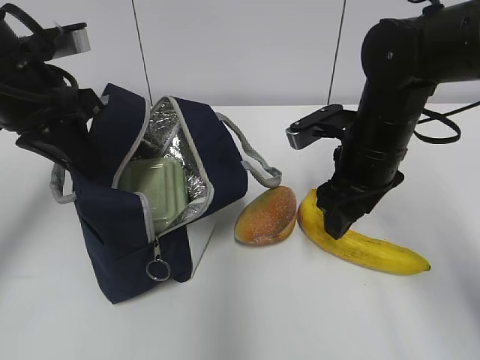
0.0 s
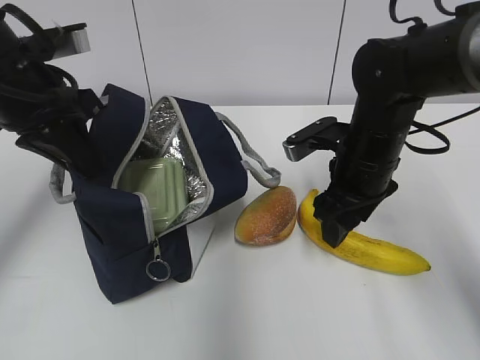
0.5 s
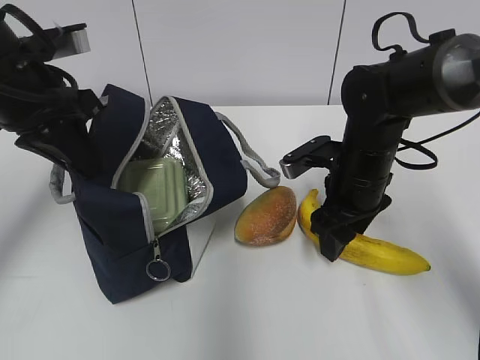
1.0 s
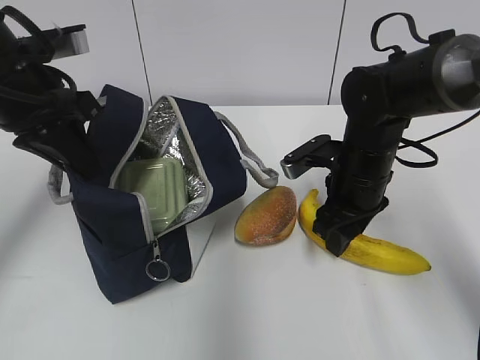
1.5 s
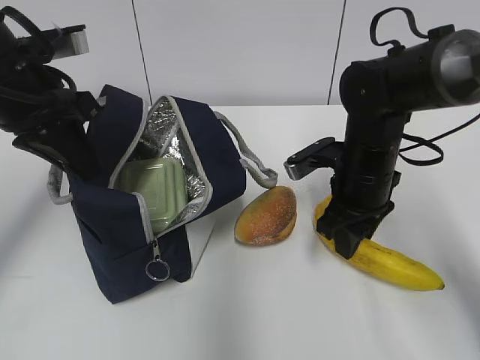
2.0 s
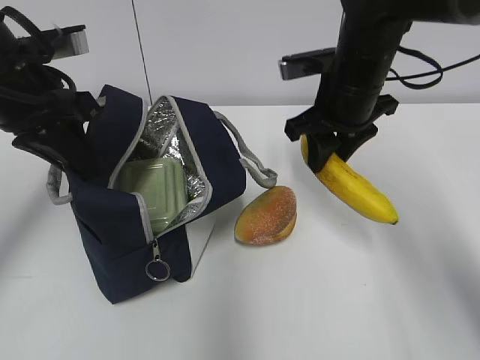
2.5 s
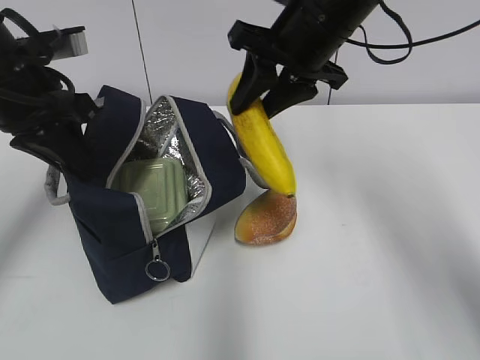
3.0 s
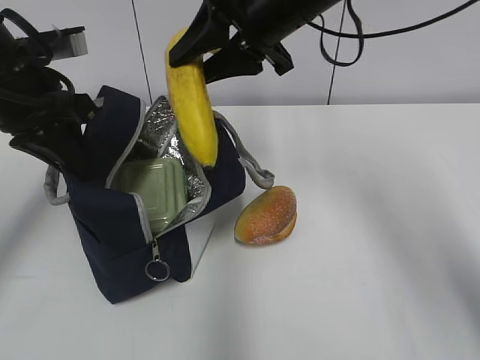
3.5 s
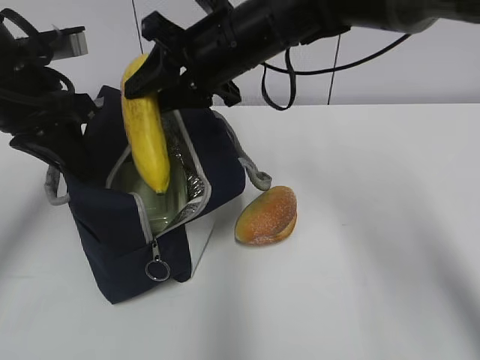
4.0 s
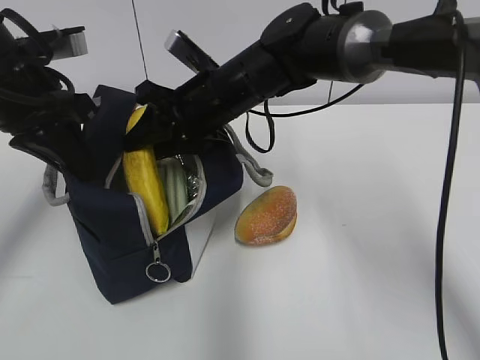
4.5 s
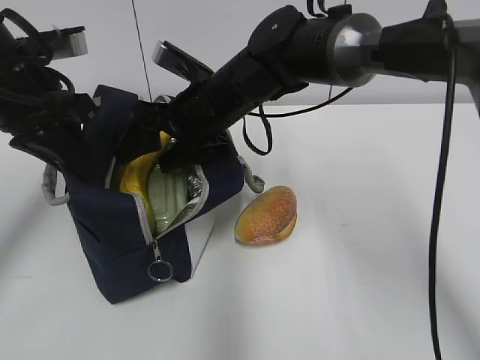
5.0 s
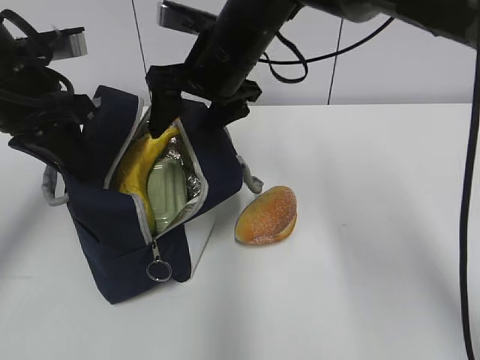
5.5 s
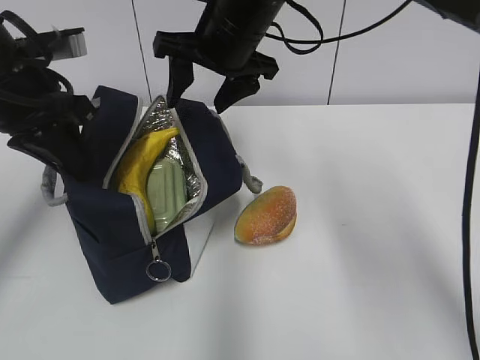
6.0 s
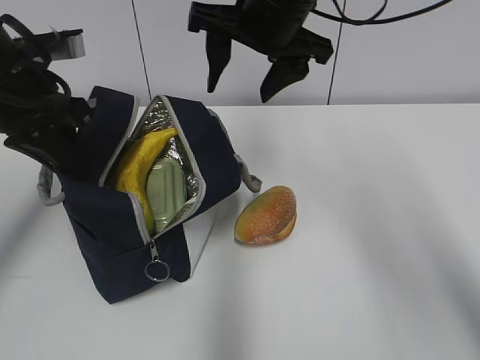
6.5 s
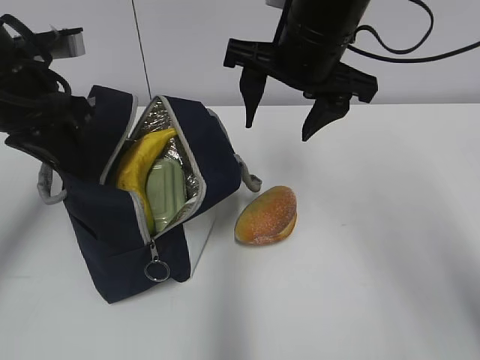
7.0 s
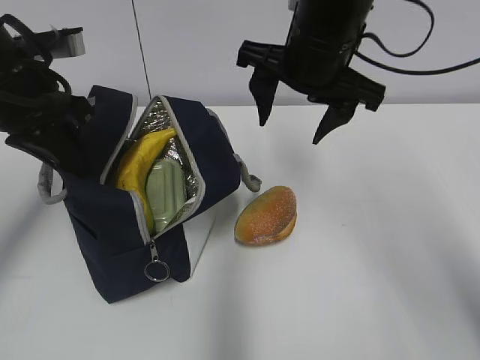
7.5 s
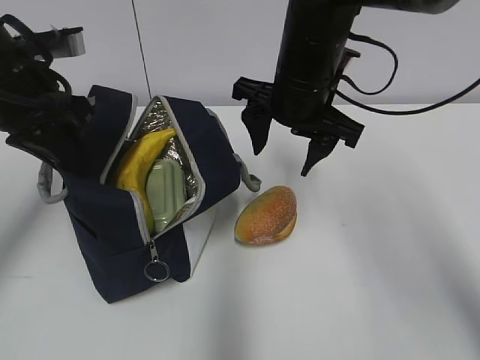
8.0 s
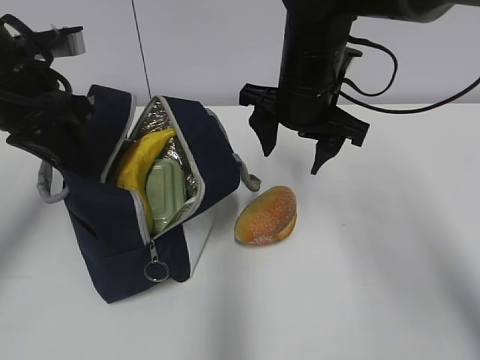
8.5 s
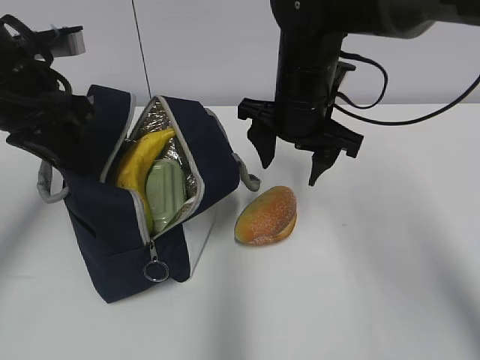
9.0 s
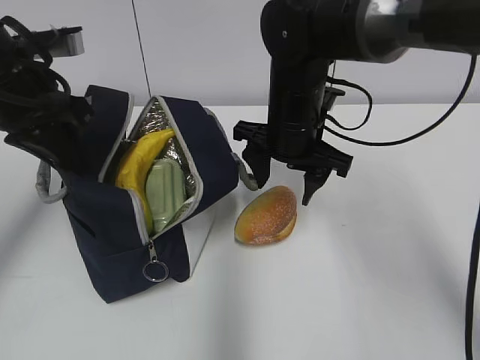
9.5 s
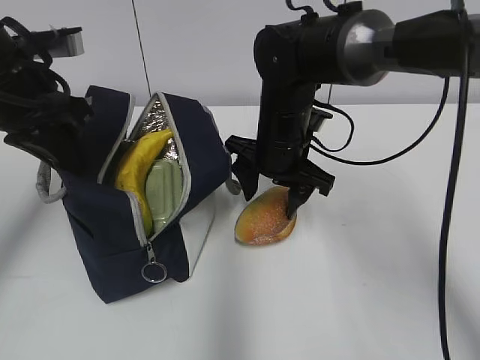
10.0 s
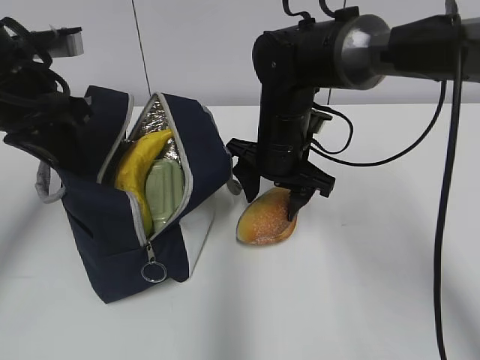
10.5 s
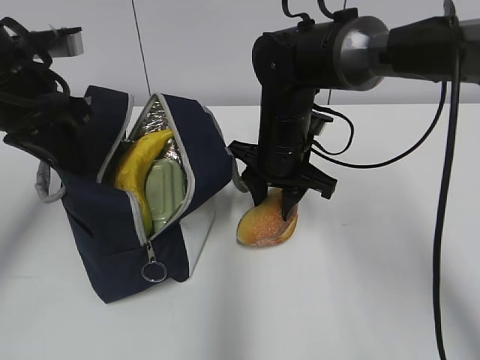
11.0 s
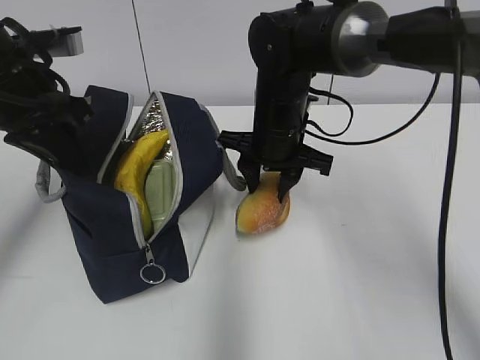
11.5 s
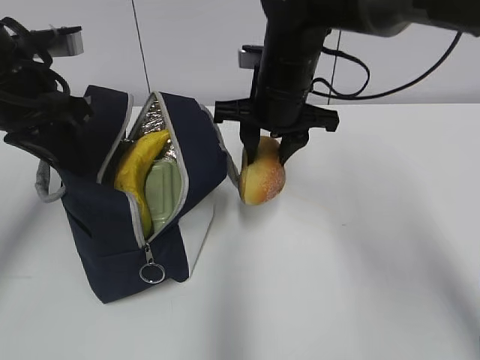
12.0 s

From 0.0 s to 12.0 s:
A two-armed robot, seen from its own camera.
Step, from 2.0 s to 5.0 s: Place it into the bag with your right hand.
Step, from 5.5 s to 11.0 s: Grab the bread with your right hand.
From 0.0 s to 2.0 s: The right gripper closes its fingers.
From 2.0 s to 4.0 s: The right gripper goes roughly 20 cm upward and to the left.
From 4.0 s to 6.0 s: The right gripper travels downward and back again, about 5 cm each way, and opens its fingers.
From 6.0 s to 8.0 s: The right gripper is displaced to the right by approximately 5 cm.
From 8.0 s to 10.0 s: The right gripper goes about 10 cm downward.
From 10.0 s to 12.0 s: The right gripper moves upward, approximately 5 cm, and closes.

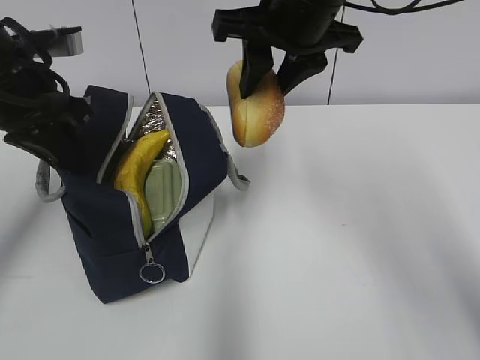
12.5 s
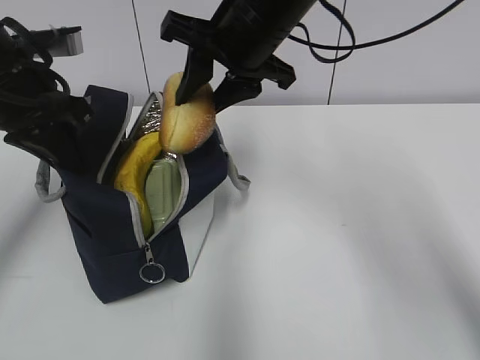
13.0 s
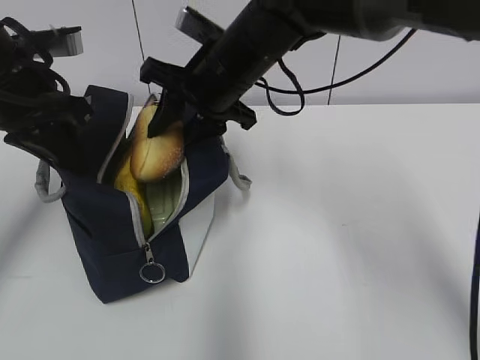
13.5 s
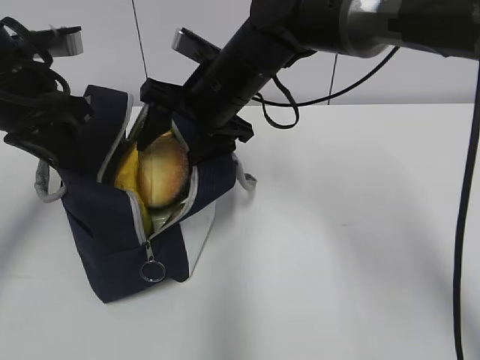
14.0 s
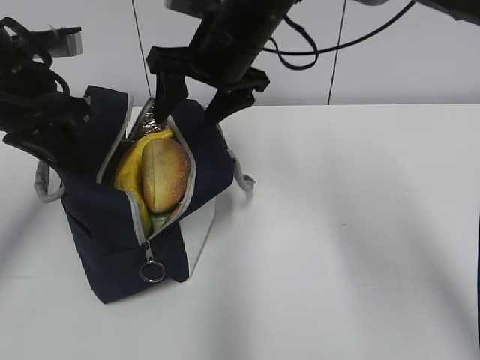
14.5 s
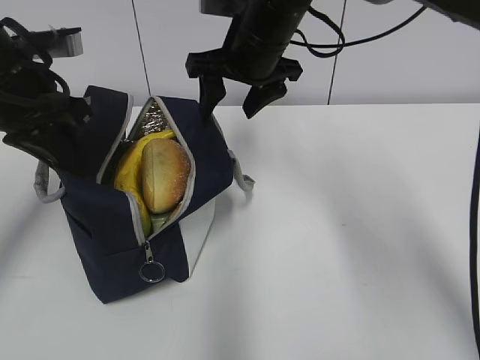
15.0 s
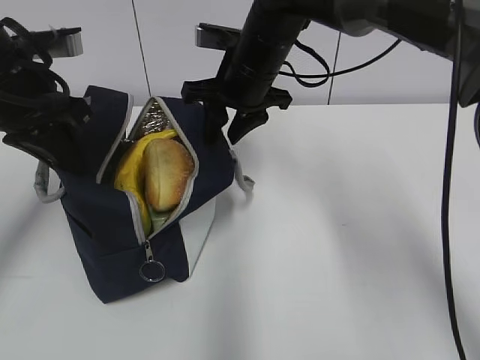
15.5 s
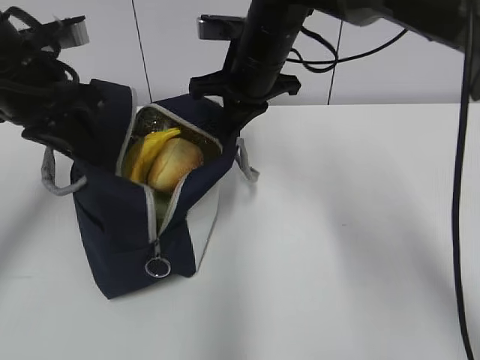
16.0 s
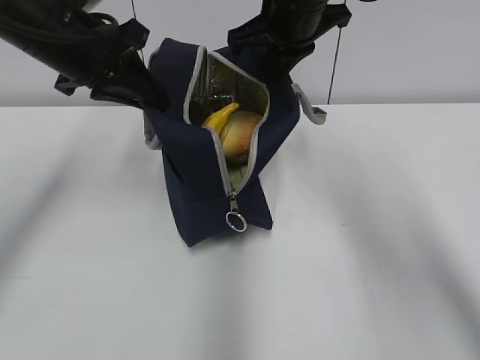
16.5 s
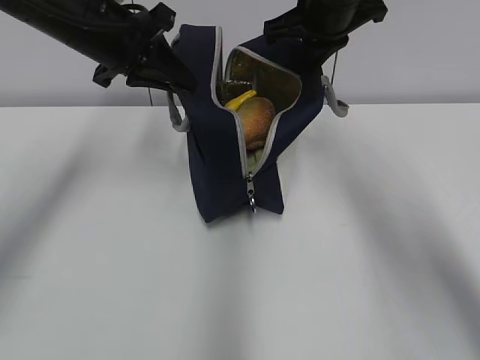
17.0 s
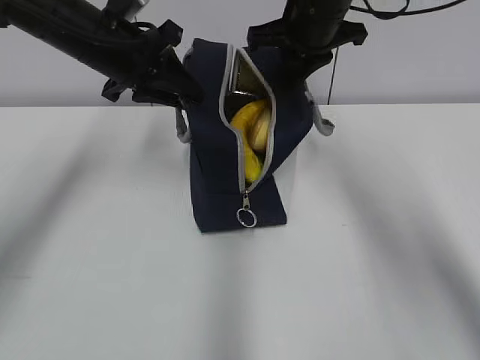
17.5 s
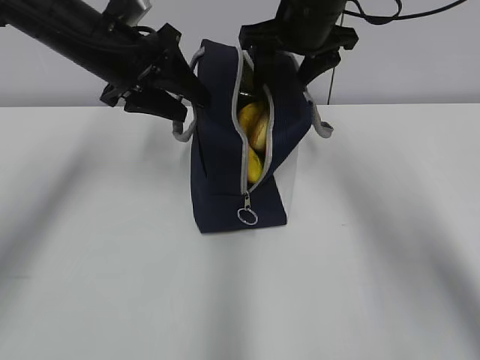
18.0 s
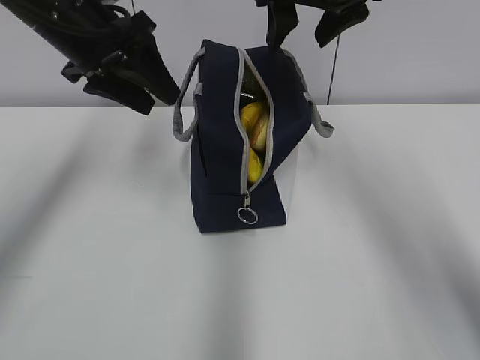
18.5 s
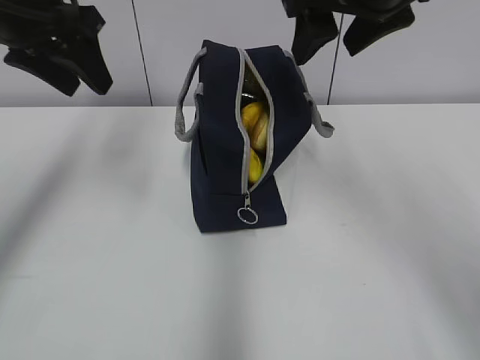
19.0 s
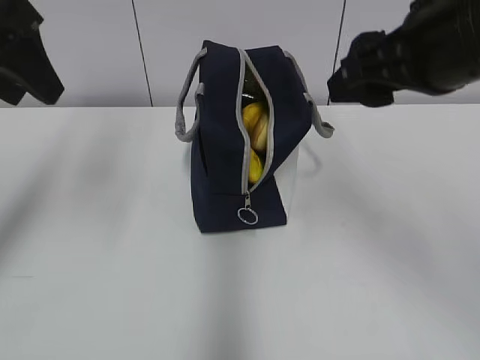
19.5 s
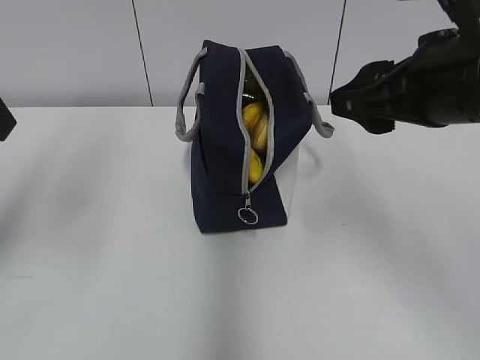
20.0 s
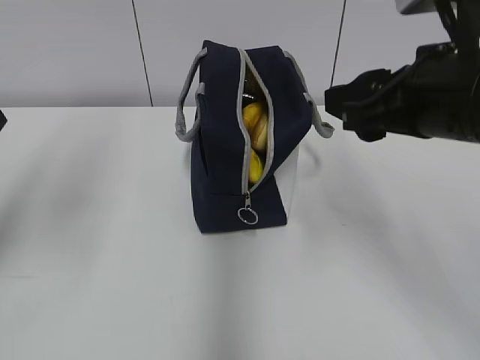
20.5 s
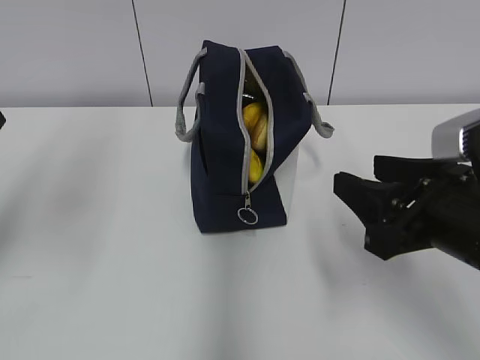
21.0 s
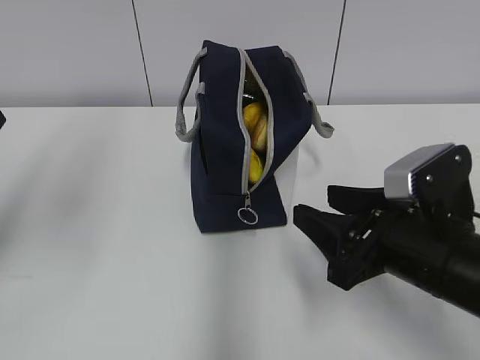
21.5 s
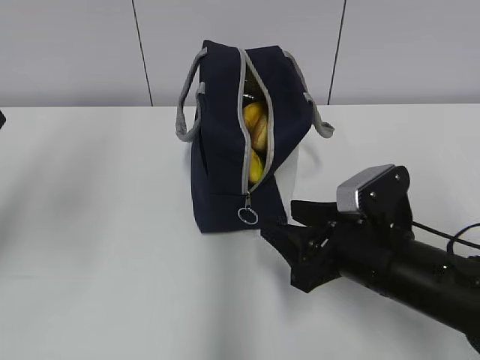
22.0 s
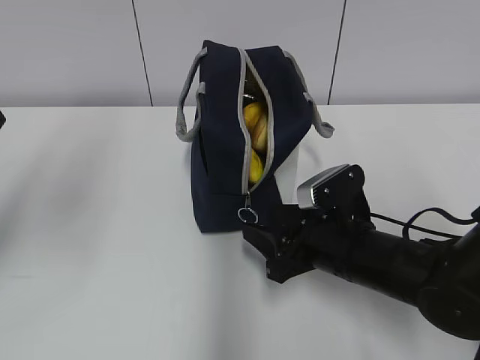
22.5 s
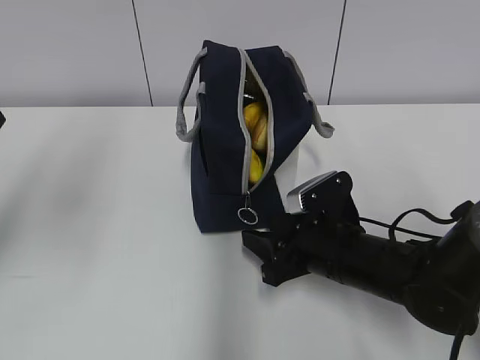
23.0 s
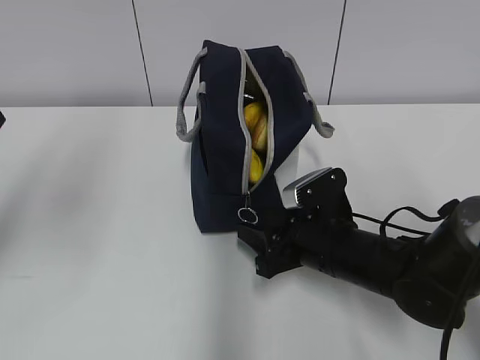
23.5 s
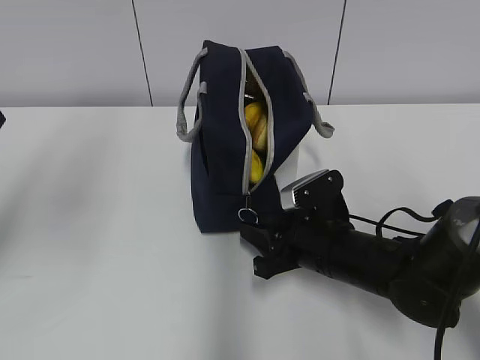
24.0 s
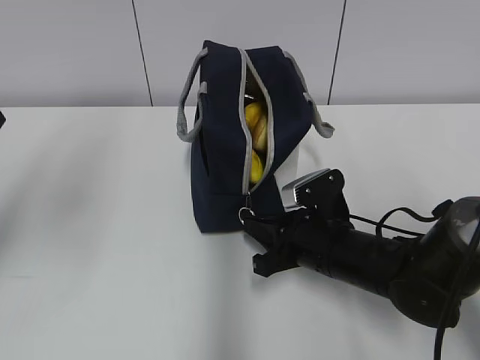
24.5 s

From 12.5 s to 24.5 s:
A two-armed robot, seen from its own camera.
Step, from 14.5 s to 15.5 s: Grab the lunch bag with your right hand.
Step, from 16.0 s to 17.5 s: Move the lunch bag to the right.
From 12.5 s to 14.5 s: The right gripper moves to the left and downward, about 10 cm, and opens its fingers.
From 14.5 s to 16.5 s: The right gripper is displaced to the right by approximately 5 cm, and closes its fingers; the left gripper ends up about 5 cm from where it was.
From 16.5 s to 18.5 s: The left gripper opens its fingers. The right gripper moves roughly 5 cm, and opens up.
From 18.5 s to 20.5 s: The left gripper heads backward, to the left and upward, covering about 15 cm. Meanwhile the right gripper goes roughly 20 cm backward and downward.
From 20.5 s to 22.5 s: The right gripper moves downward, roughly 20 cm.
From 22.5 s to 24.5 s: The right gripper closes up.

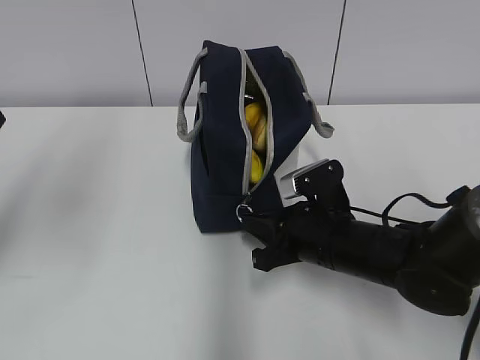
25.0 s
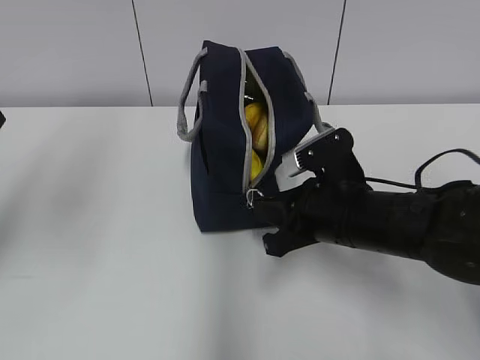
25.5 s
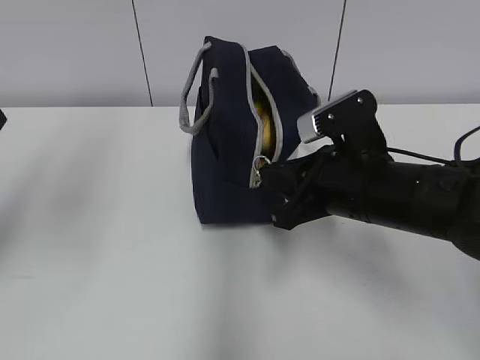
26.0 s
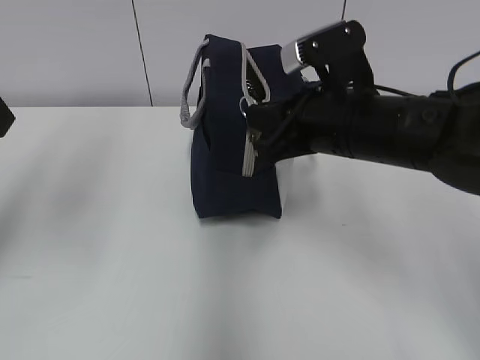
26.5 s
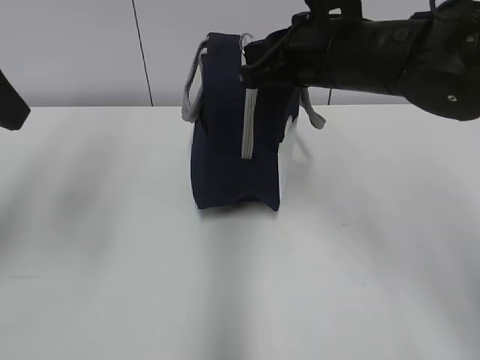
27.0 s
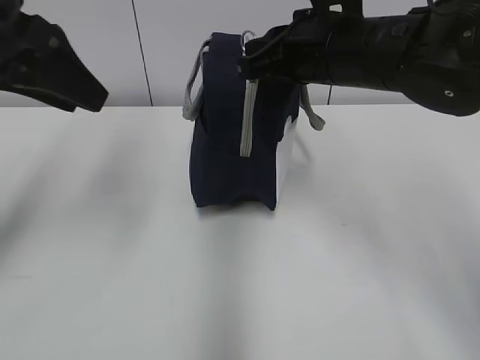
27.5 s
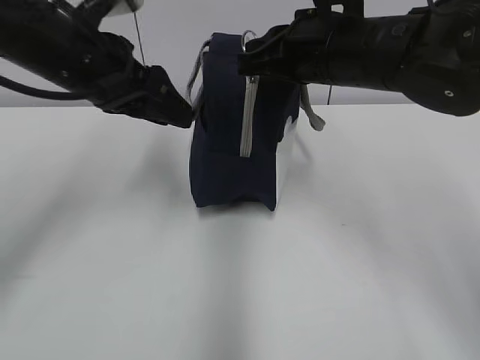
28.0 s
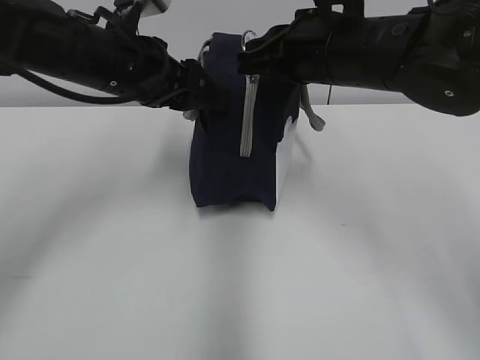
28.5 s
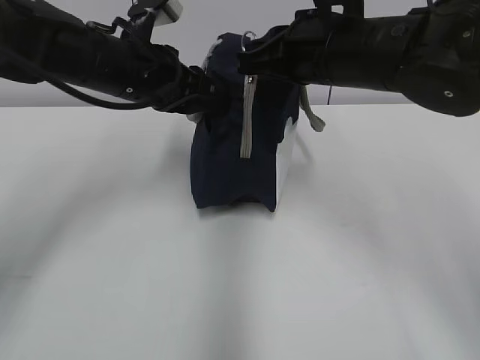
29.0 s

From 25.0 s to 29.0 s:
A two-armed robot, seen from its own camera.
Step, from 25.0 s to 28.5 s: Grab the lunch bag with your left hand.
From 25.0 s to 27.0 s: The right gripper travels upward by some 20 cm.
From 27.0 s to 29.0 s: The left gripper heads forward, downward and to the right, covering some 20 cm, and closes.
